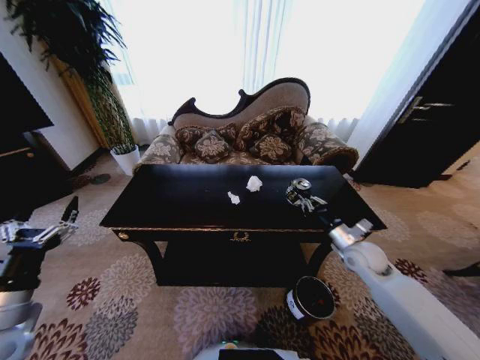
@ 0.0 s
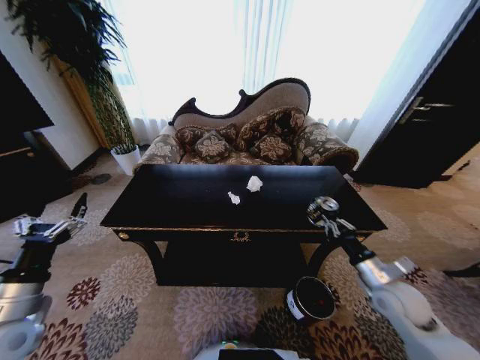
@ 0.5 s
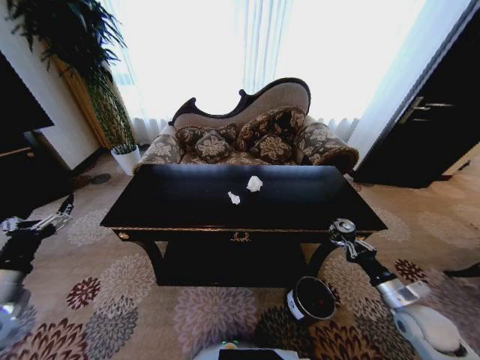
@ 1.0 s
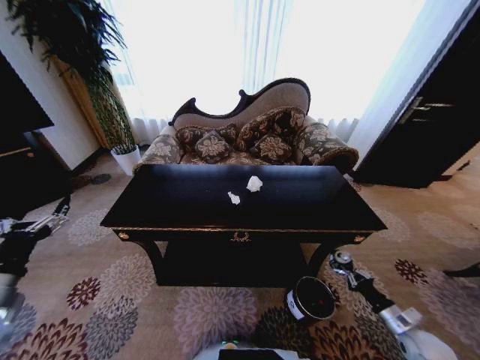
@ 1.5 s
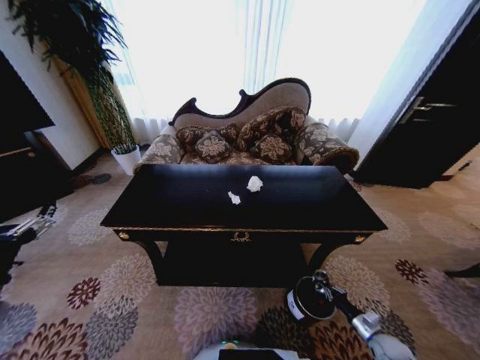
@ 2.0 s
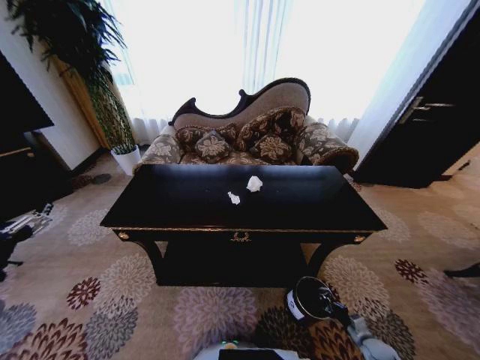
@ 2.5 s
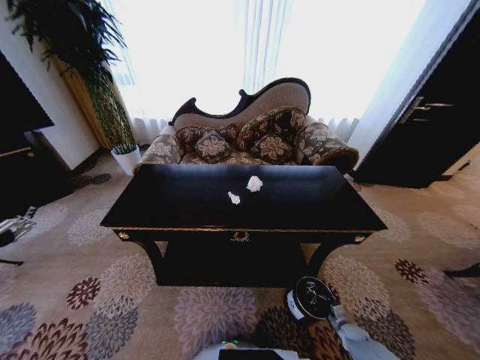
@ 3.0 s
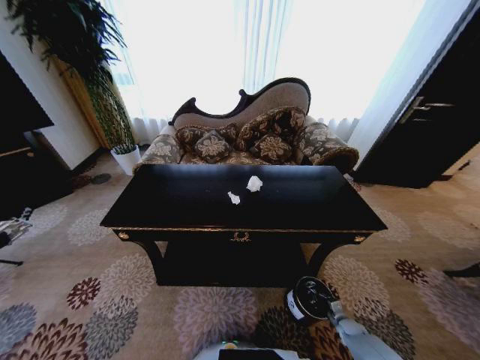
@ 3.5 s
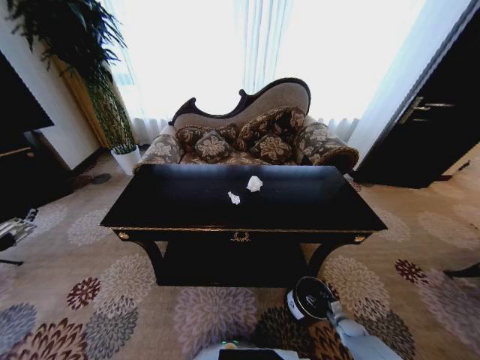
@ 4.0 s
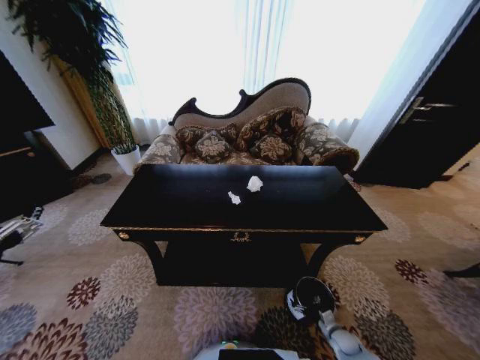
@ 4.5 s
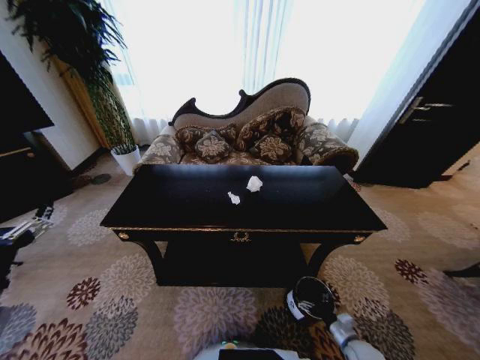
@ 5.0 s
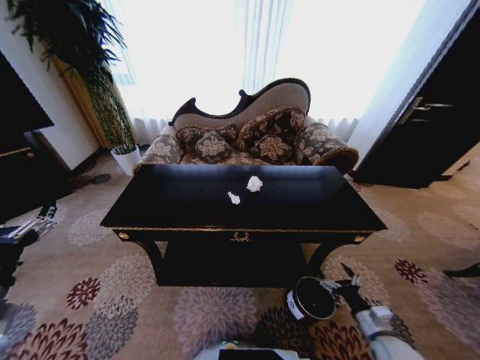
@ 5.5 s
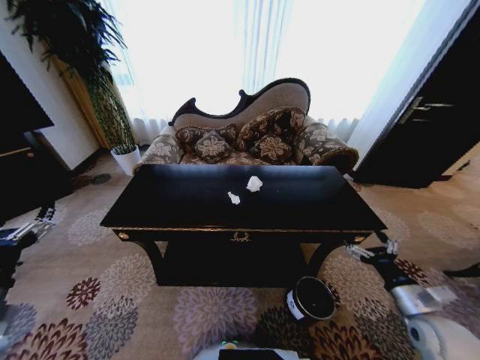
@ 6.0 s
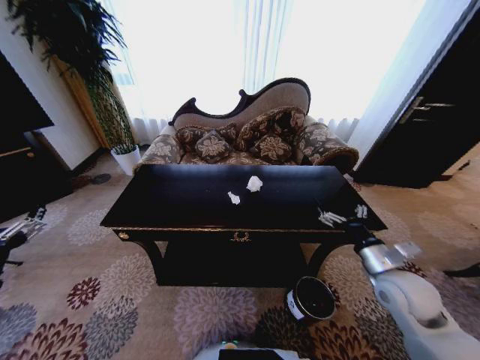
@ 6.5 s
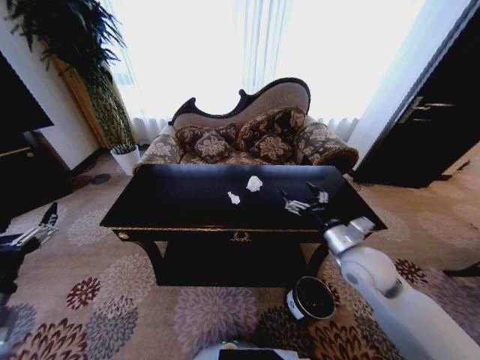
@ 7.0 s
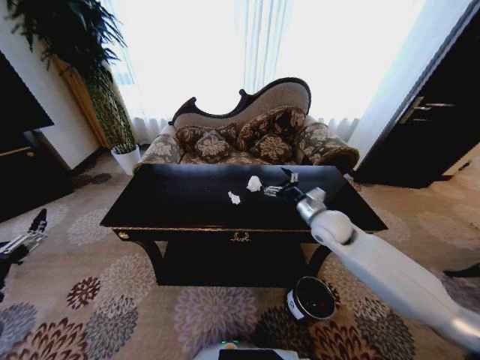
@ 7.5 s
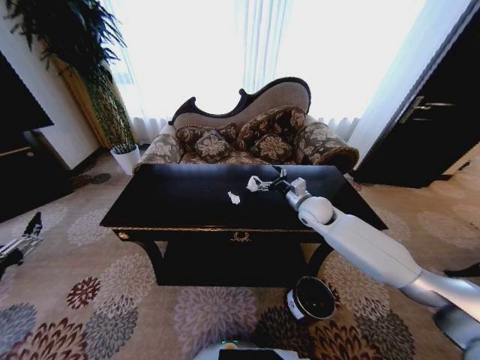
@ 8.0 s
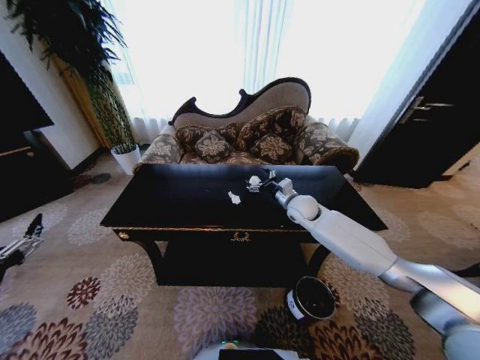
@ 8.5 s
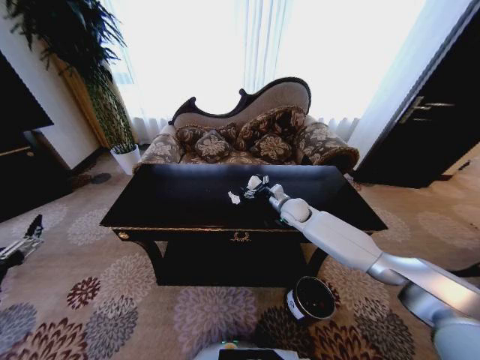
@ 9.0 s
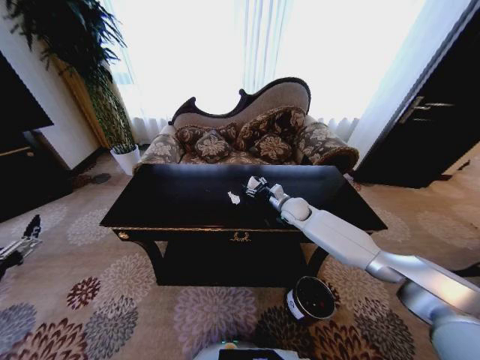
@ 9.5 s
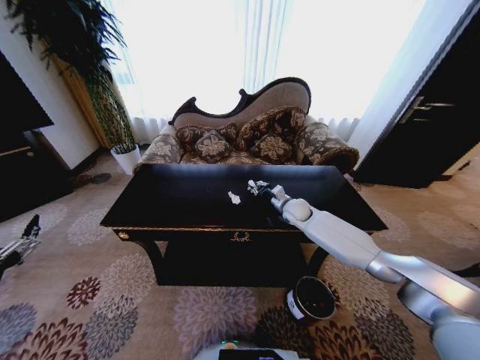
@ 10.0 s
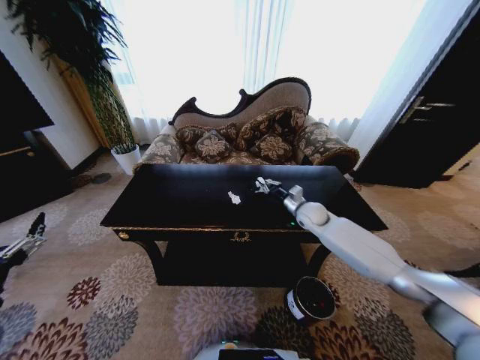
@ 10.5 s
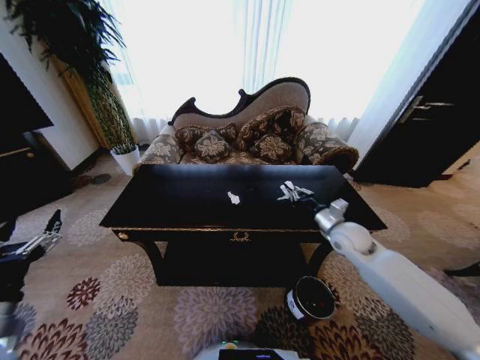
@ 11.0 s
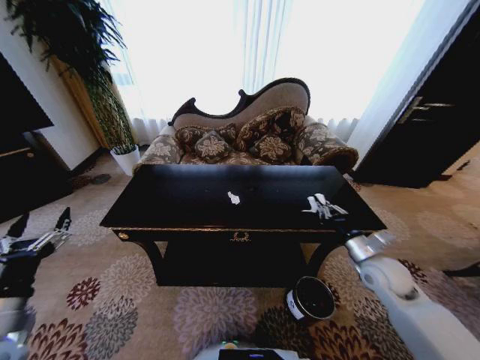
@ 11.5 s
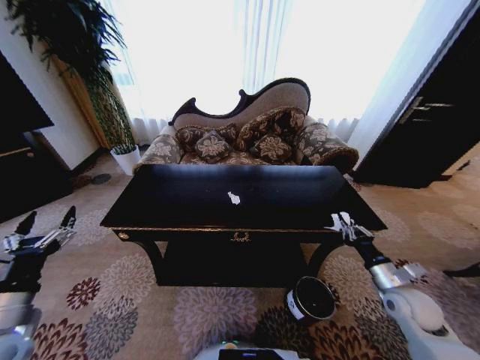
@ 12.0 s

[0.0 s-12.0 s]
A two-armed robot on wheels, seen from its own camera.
Task of the whole recording: Move to the front of the table and place the trash on the table into the trash bin.
0.0 to 2.0 s: The right gripper moves downward, backward and to the right, approximately 35 cm.
2.0 to 4.0 s: The right gripper moves downward and forward, some 10 cm, and opens its fingers.
4.0 to 6.0 s: The right gripper goes roughly 35 cm upward, and opens its fingers.
6.0 to 8.0 s: The right gripper moves forward and to the left, roughly 35 cm.
8.0 to 10.0 s: The right gripper shifts some 10 cm downward and forward, and closes up.
10.0 to 12.0 s: The right gripper shifts approximately 35 cm backward and to the right. Meanwhile the left gripper shifts by approximately 5 cm.

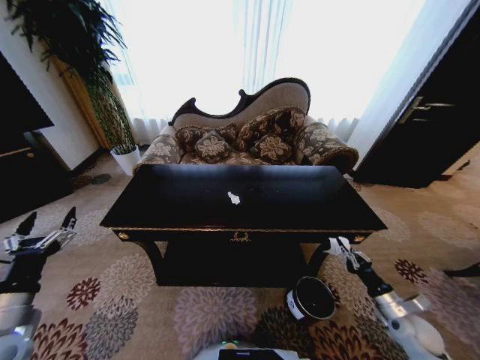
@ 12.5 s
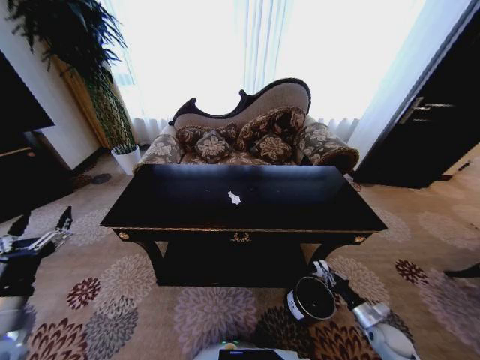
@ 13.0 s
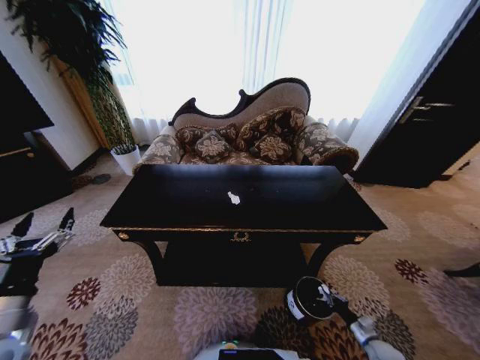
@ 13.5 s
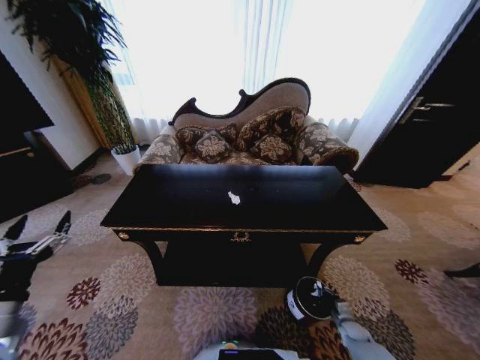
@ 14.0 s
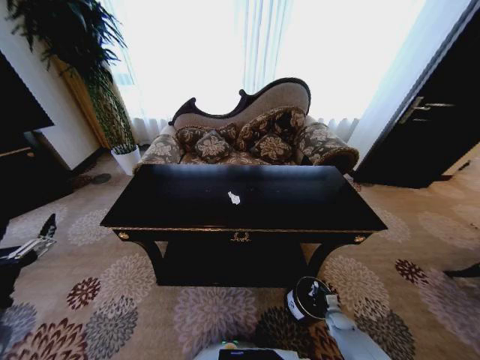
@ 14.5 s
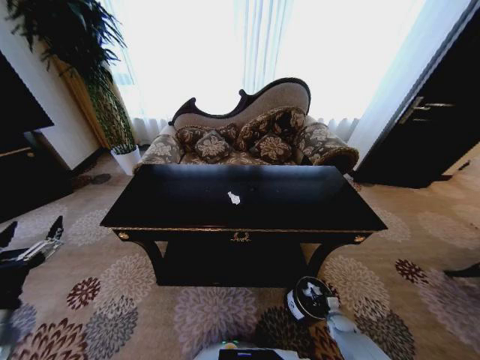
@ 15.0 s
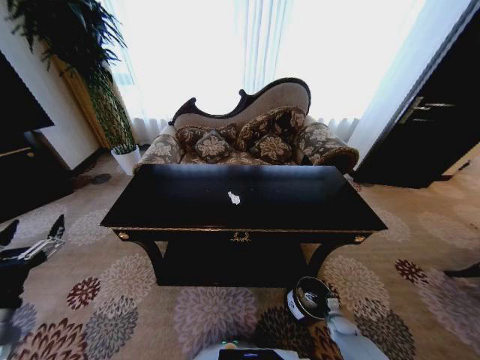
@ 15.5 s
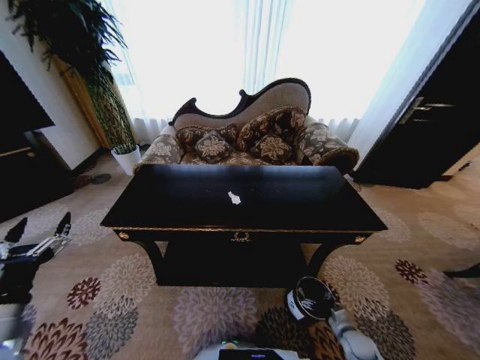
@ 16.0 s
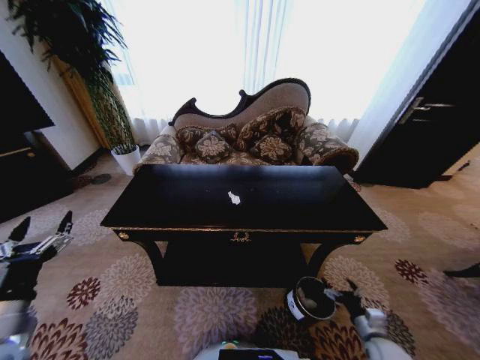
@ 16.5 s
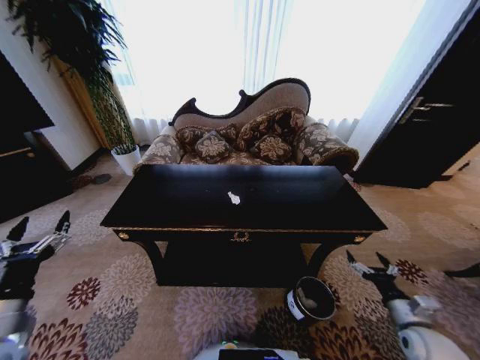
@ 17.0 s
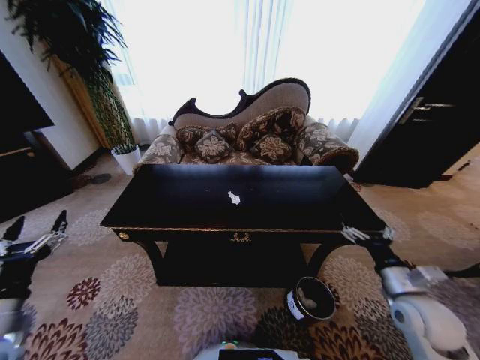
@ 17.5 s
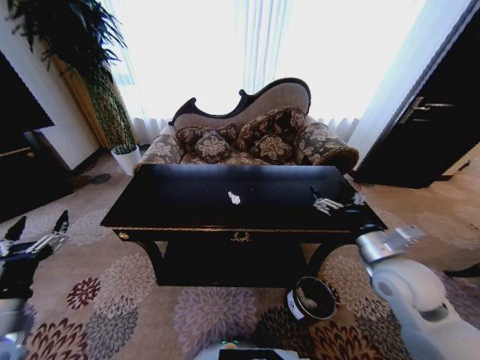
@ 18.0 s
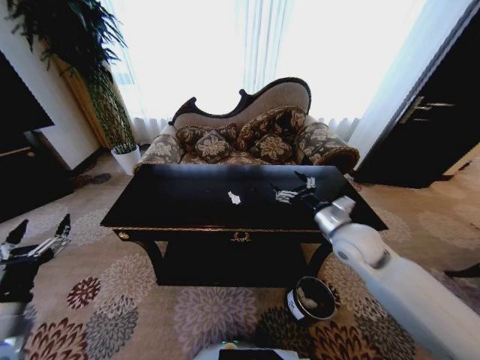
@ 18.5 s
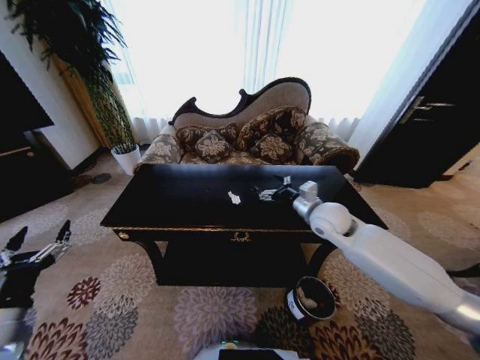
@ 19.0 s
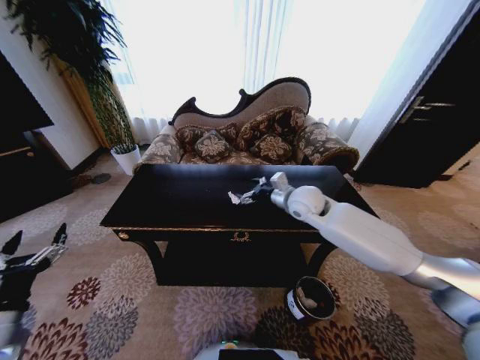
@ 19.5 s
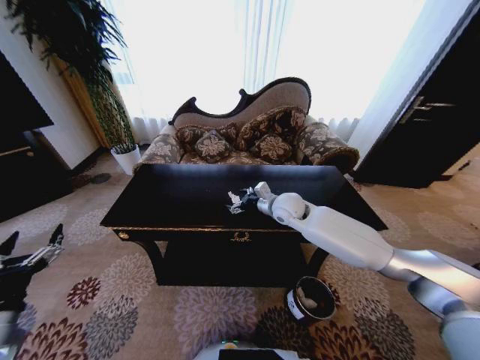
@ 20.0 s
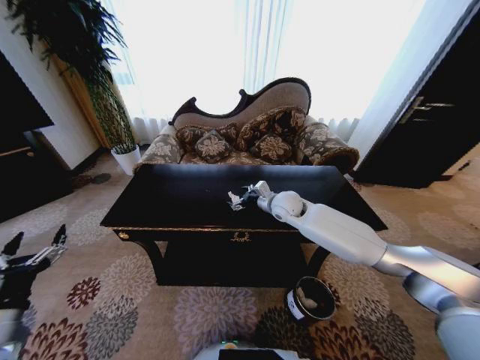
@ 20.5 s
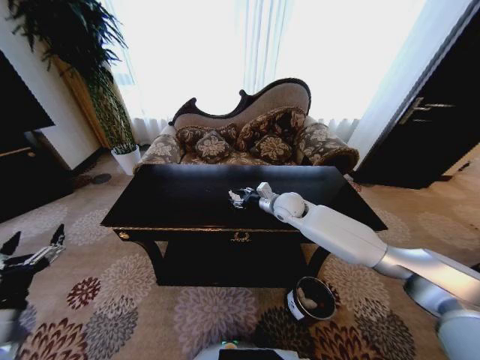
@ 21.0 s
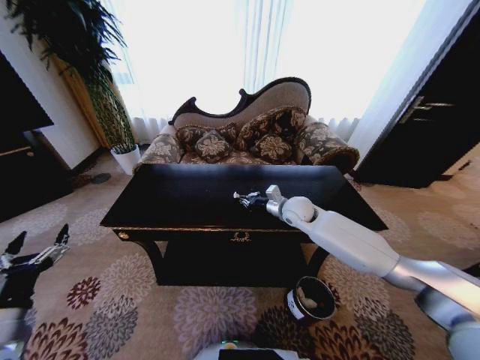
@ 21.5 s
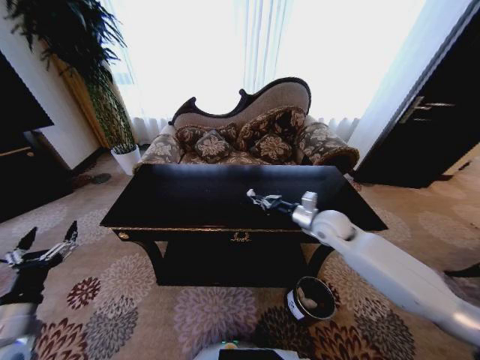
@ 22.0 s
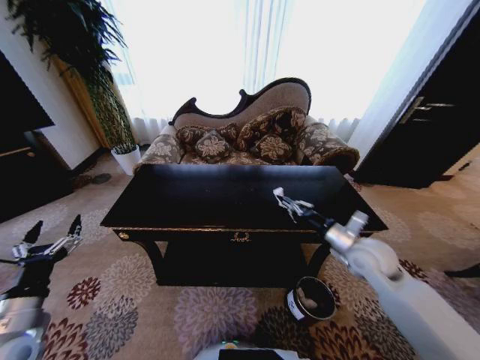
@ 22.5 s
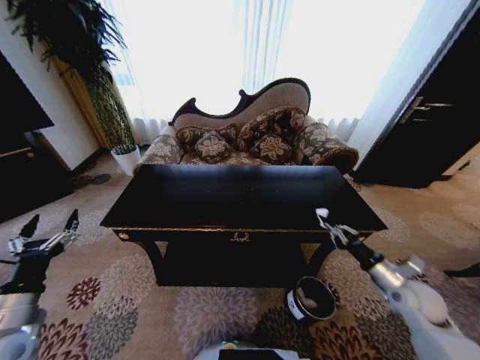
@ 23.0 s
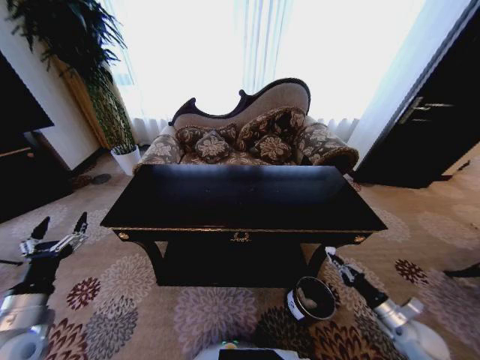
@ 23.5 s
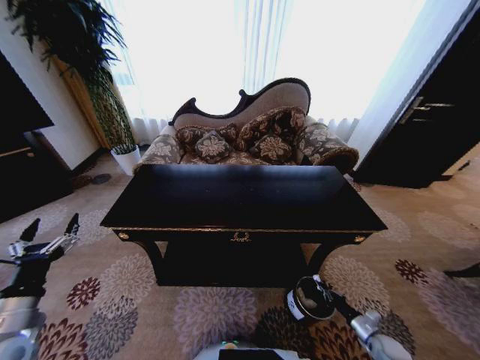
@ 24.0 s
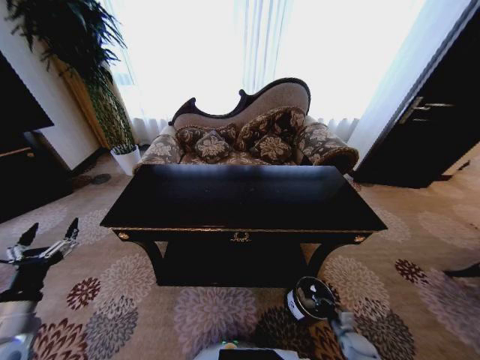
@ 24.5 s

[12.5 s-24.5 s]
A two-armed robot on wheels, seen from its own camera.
Task of the whole recording: Move to the front of the table and place the trash on the table into the trash bin.
12.5 to 14.5 s: The right gripper goes some 25 cm downward.
14.5 to 16.5 s: The right gripper travels upward and backward by approximately 20 cm, and opens.
16.5 to 18.5 s: The right gripper goes about 40 cm upward, forward and to the left.
18.5 to 20.5 s: The right gripper travels forward and to the left by roughly 20 cm.
20.5 to 22.5 s: The right gripper goes about 25 cm backward and to the right, and closes its fingers.
22.5 to 24.5 s: The right gripper goes about 40 cm downward.

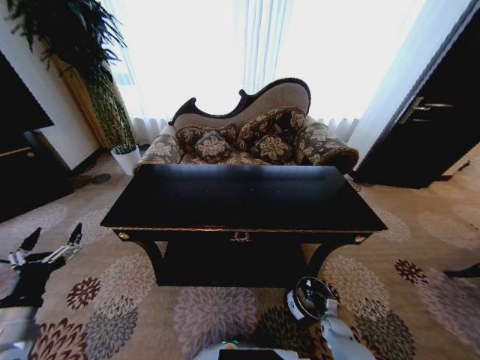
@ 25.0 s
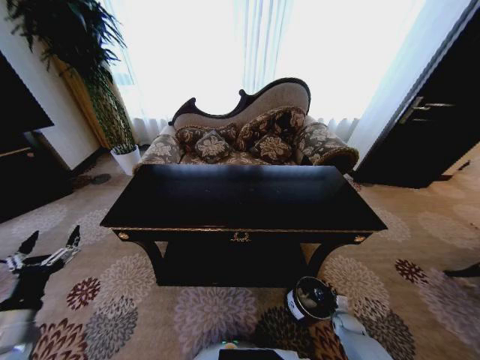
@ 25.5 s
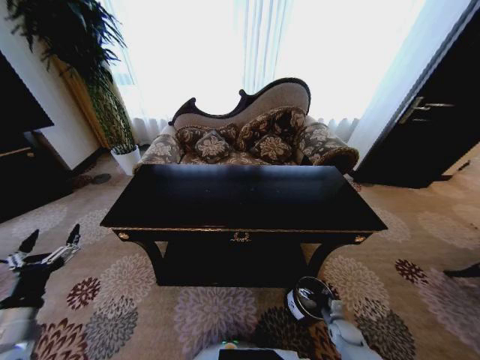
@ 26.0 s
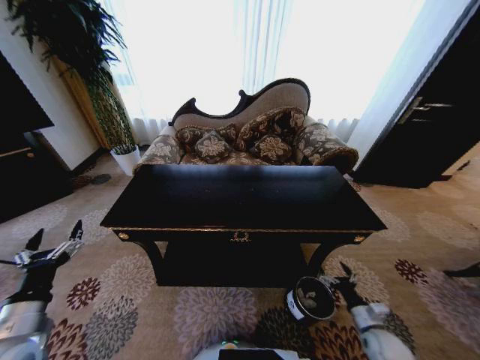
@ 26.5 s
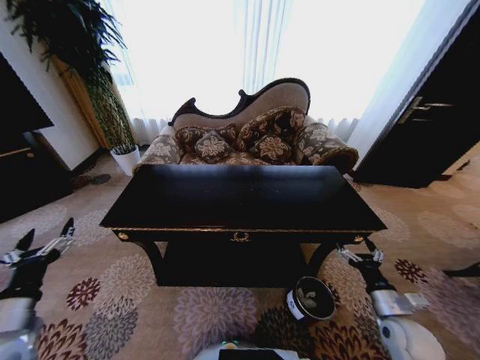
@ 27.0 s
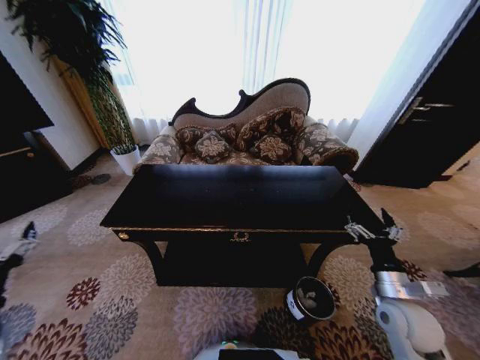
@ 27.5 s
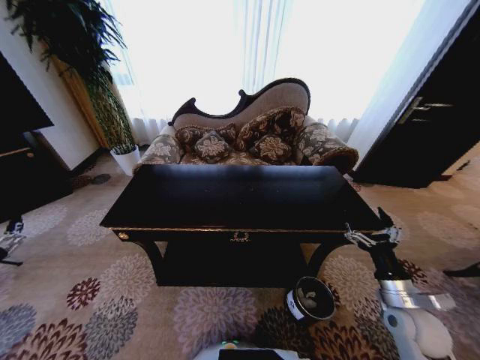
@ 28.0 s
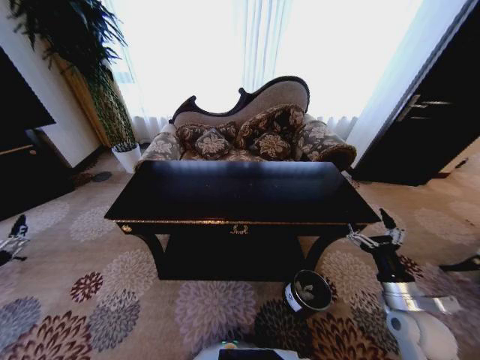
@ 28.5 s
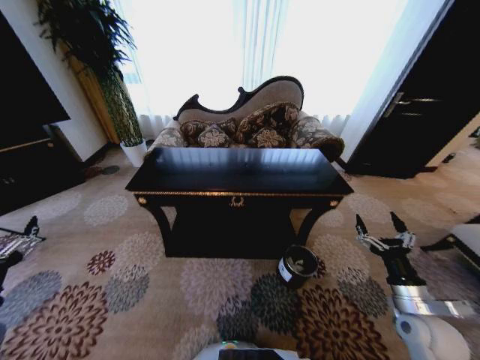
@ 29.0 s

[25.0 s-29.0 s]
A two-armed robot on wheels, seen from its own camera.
Task of the whole recording: Move to the front of the table and place the trash on the table into the trash bin.
25.0 to 27.0 s: The right gripper is displaced upward by approximately 30 cm, and opens its fingers.
